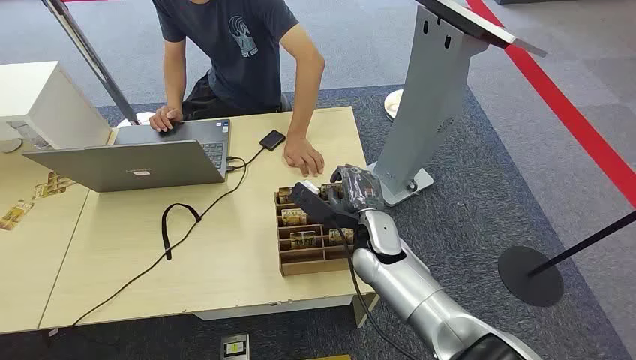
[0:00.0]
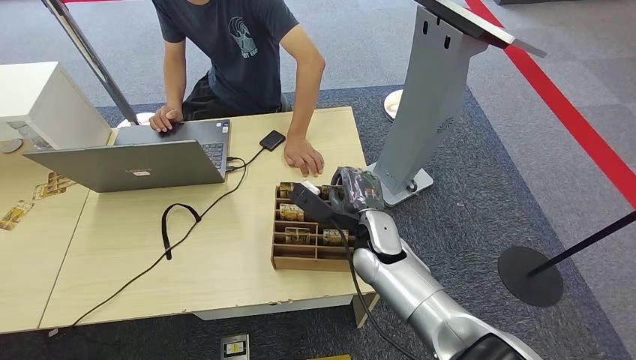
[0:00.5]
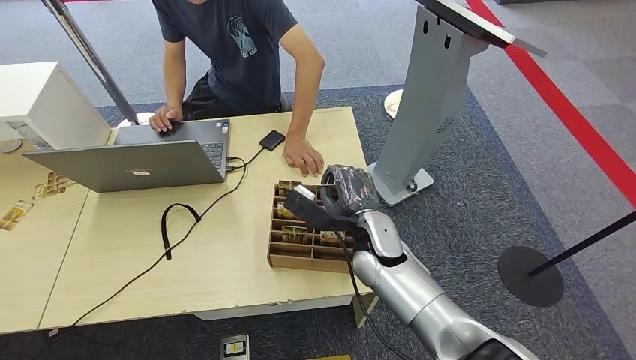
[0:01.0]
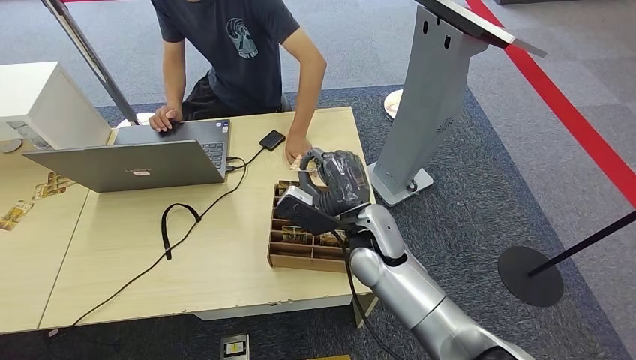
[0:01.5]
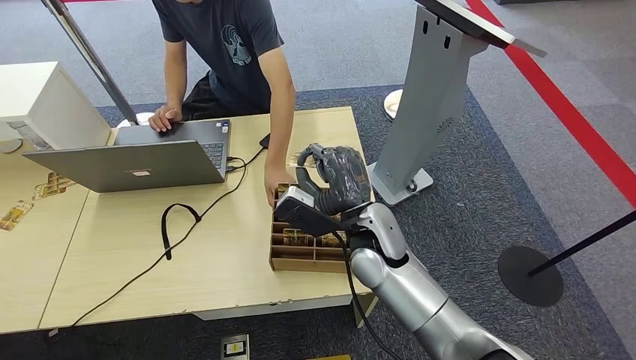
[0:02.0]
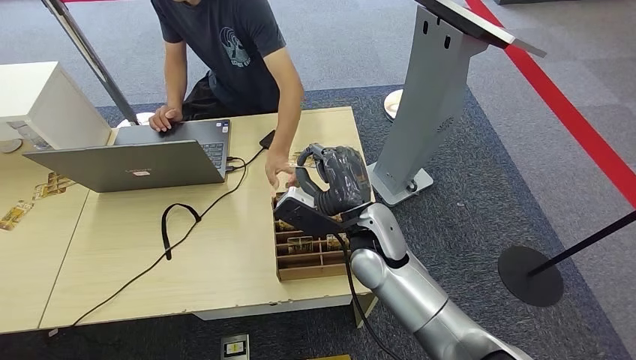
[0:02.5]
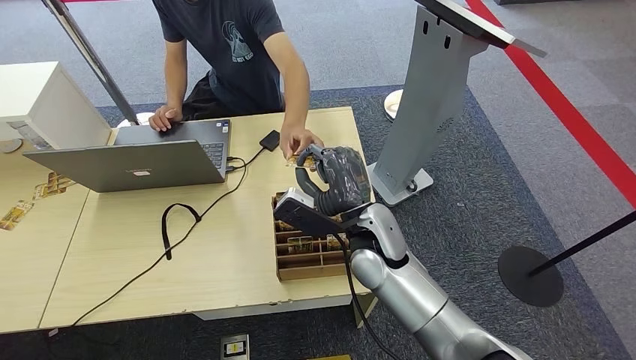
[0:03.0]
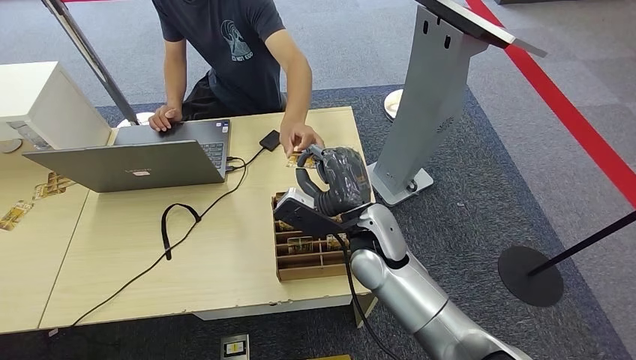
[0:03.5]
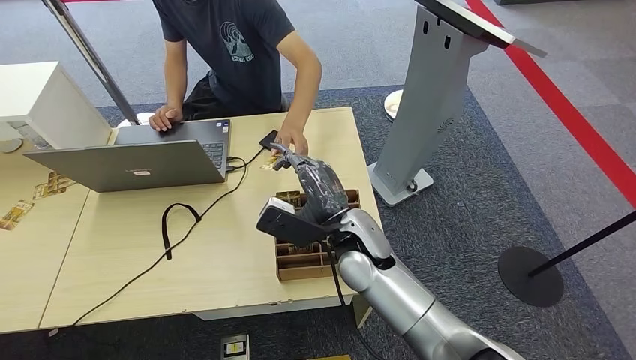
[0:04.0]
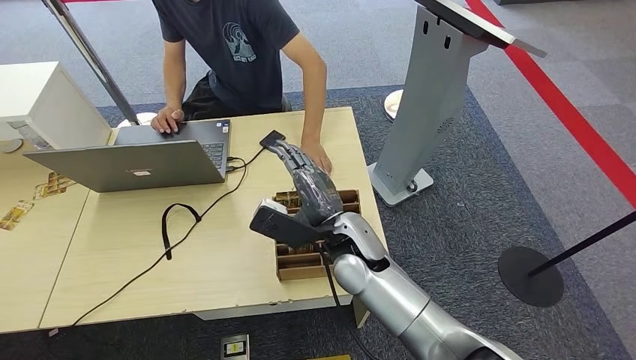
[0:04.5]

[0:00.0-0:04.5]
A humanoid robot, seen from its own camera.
Step, 0:00.0 to 0:01.5: Pick up the key card from the card box.
Step, 0:02.0 to 0:04.5: Hand the key card to the target.
0:02.0 to 0:04.5: There are only small adjustments of the hands.

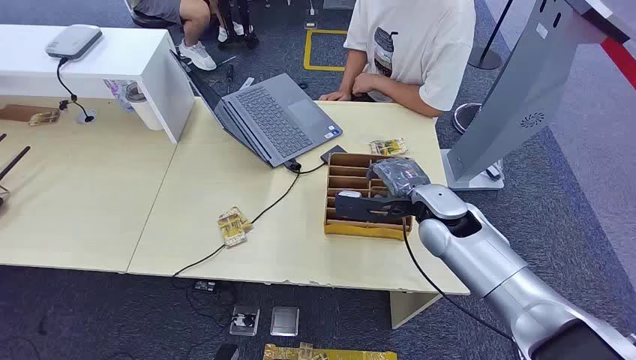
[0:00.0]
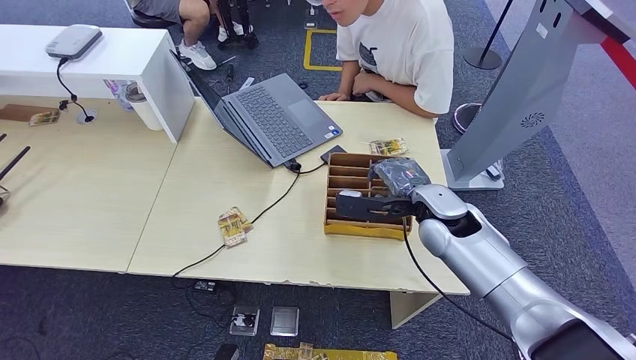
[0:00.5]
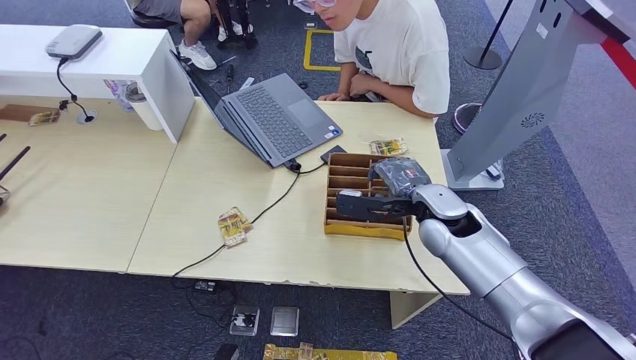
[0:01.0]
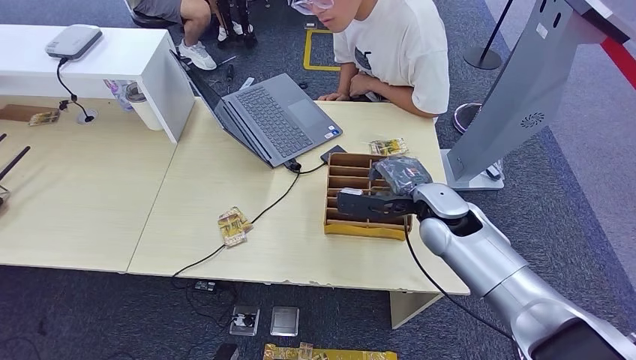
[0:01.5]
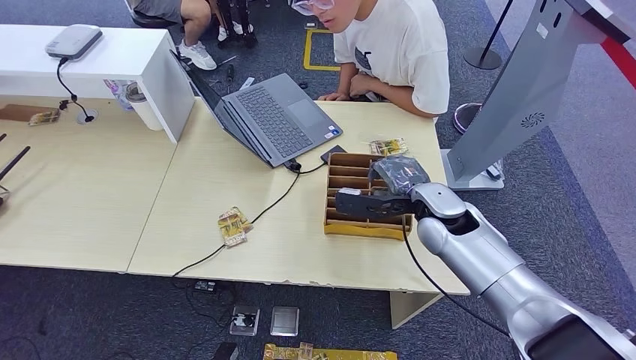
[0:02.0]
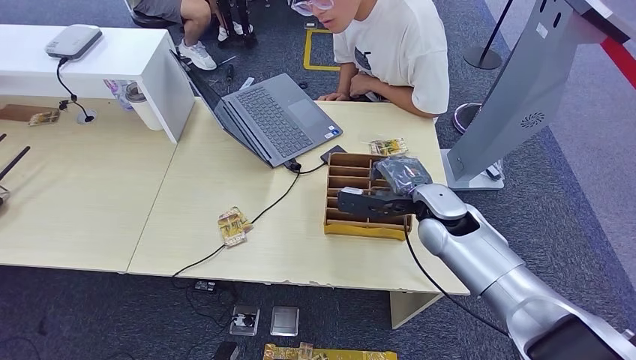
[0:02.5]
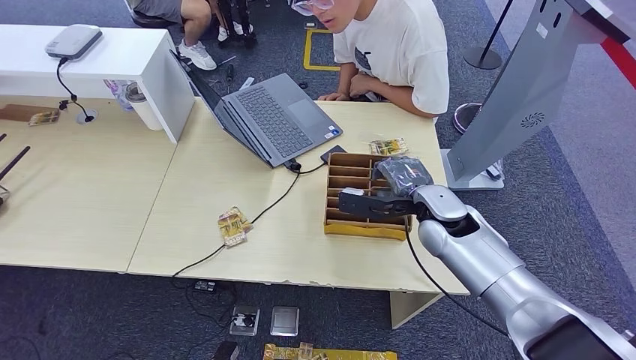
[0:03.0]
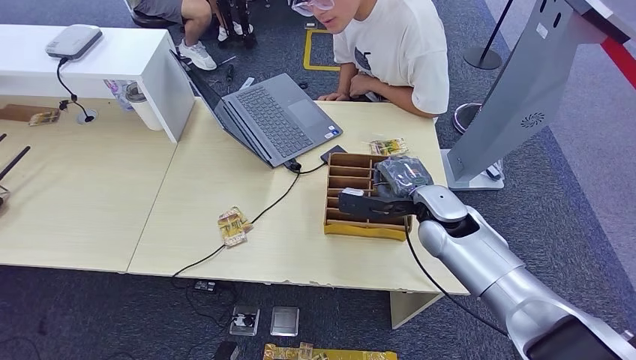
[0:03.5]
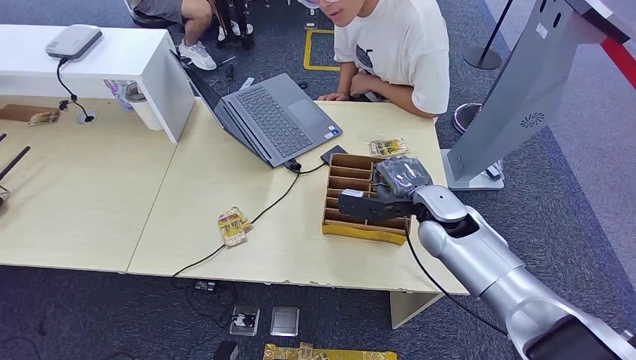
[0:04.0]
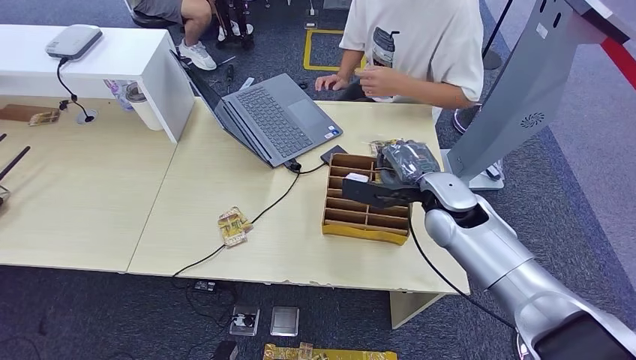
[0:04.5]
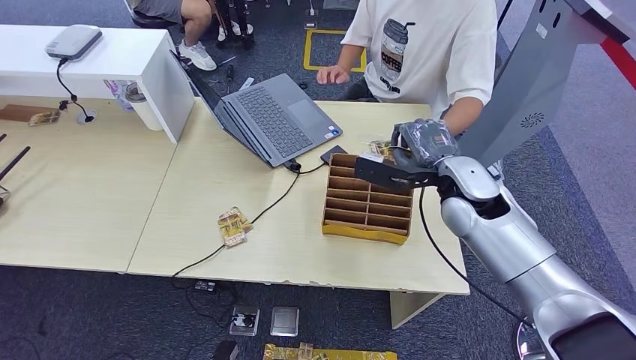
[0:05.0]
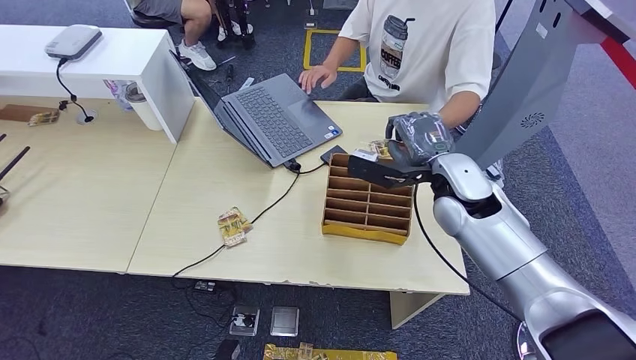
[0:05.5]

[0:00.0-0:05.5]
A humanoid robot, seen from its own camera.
Step, 0:00.0 to 0:03.5: Pick up the key card from the card box.
Step, 0:04.0 to 0:05.5: Hand the key card to the target.
0:02.0 to 0:03.5: Both hands stay about where they are.
0:03.5 to 0:05.5: The right hand is displaced upward by approximately 5 cm.
